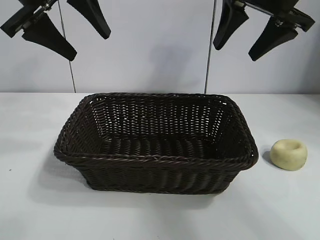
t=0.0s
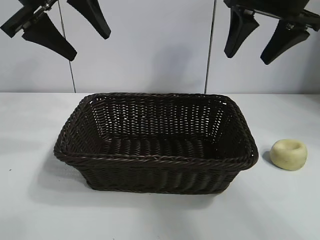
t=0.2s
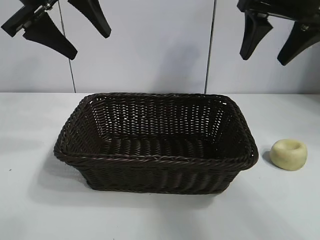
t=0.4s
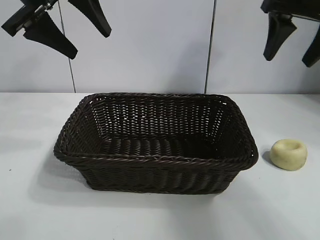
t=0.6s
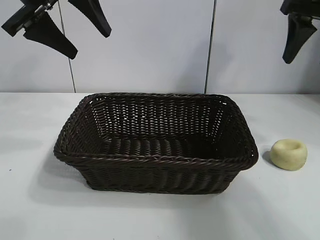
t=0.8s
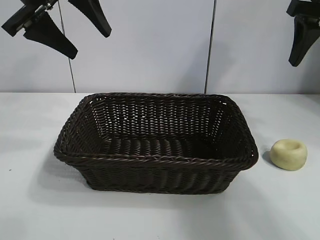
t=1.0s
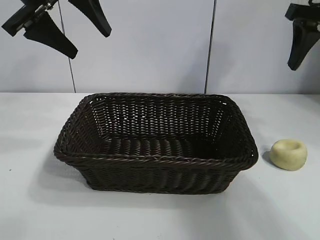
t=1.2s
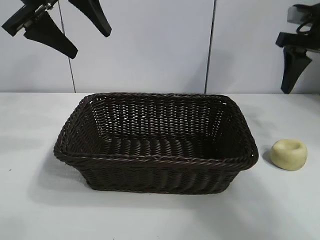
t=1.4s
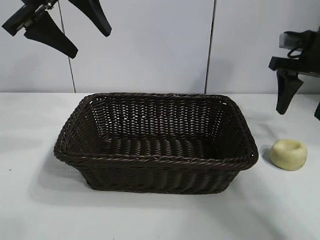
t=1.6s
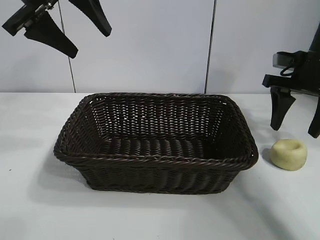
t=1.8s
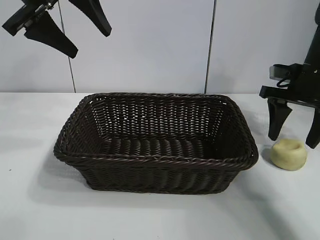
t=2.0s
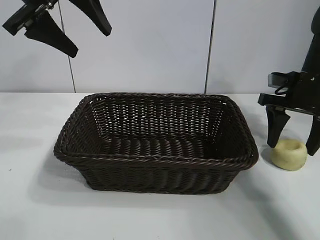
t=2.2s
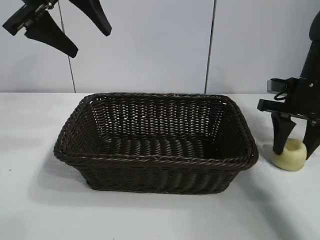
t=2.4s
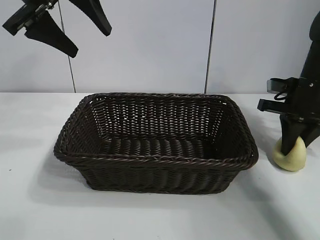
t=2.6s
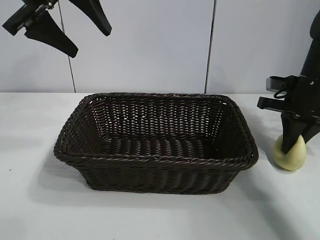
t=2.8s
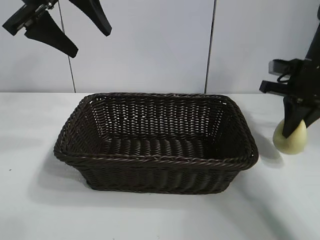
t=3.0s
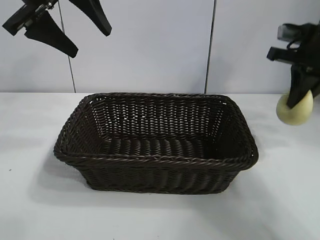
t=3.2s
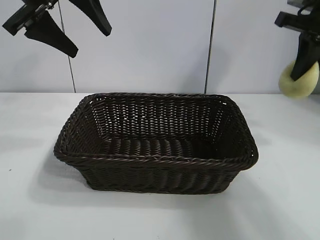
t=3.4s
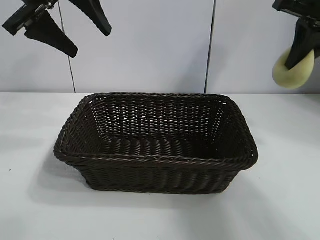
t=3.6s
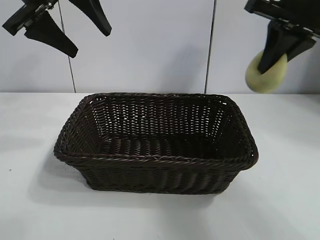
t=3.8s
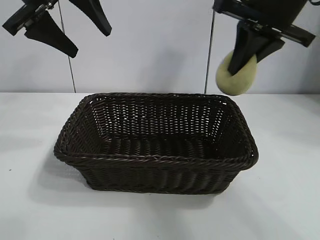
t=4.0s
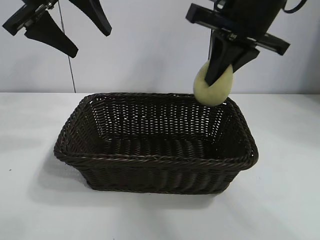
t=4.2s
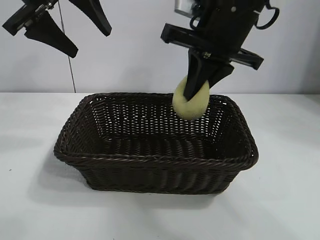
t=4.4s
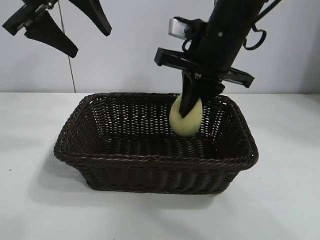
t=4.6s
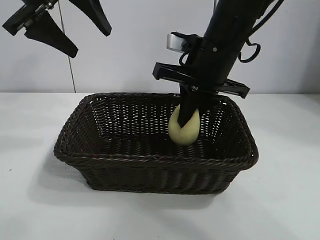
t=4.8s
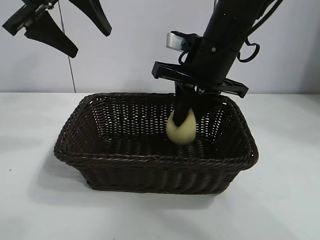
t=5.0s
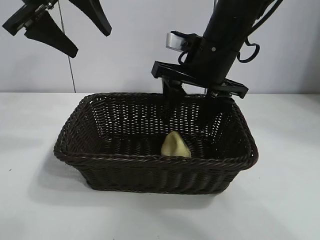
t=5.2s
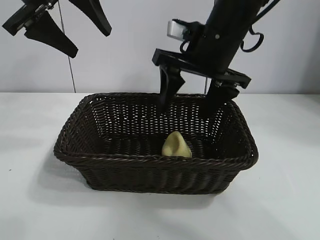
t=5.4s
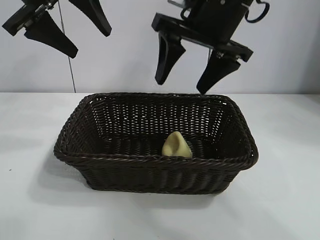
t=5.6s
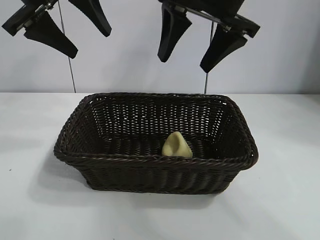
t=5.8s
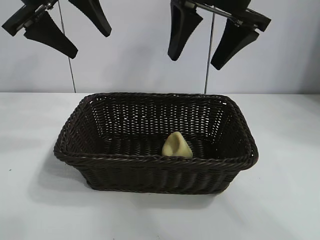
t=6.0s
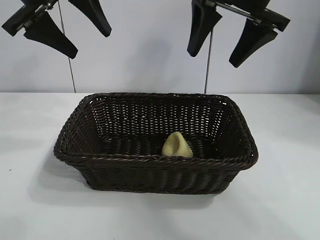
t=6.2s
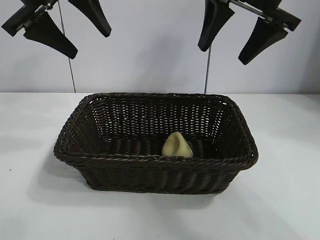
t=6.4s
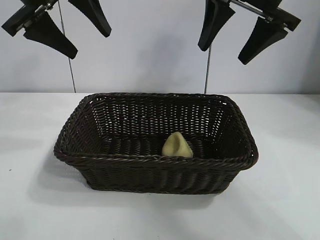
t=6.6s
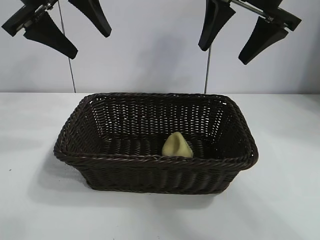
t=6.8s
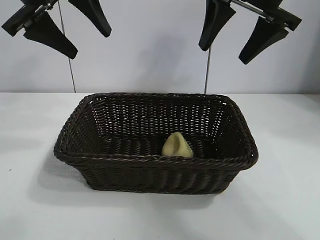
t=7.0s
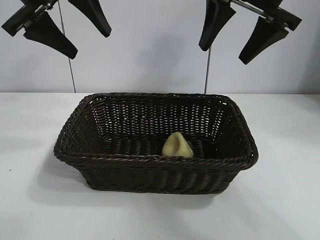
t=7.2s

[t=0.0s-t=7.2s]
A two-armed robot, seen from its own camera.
Task of the whole recording: pick up the egg yolk pastry and put it into the basket.
Step, t=0.0s to t=2.6s: Grasp egg yolk pastry with right gripper.
Step, t=2.8s to t=5.0s: Place the egg yolk pastry in the basket with right gripper.

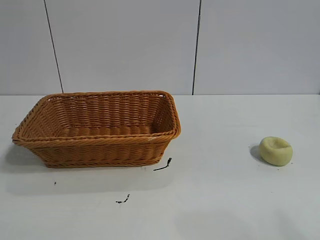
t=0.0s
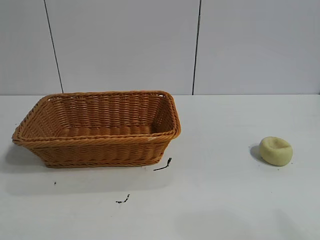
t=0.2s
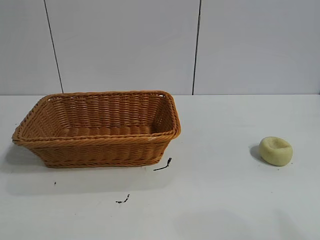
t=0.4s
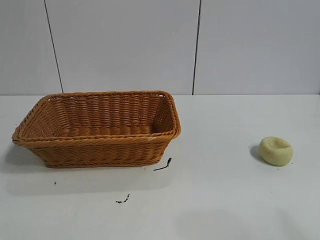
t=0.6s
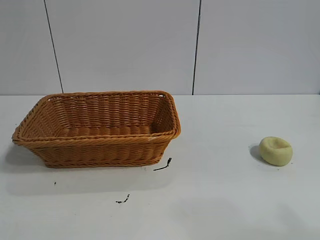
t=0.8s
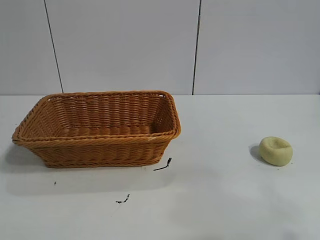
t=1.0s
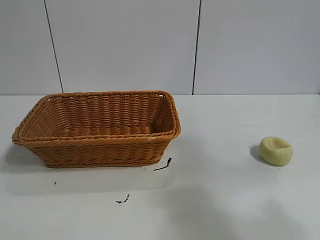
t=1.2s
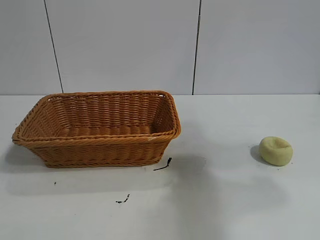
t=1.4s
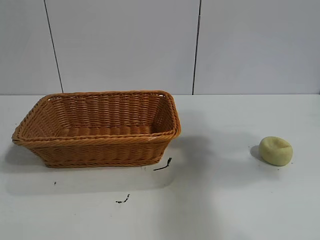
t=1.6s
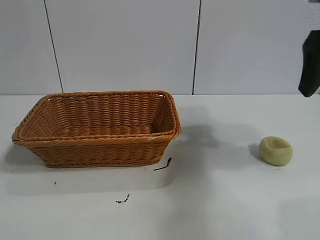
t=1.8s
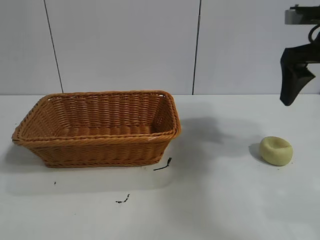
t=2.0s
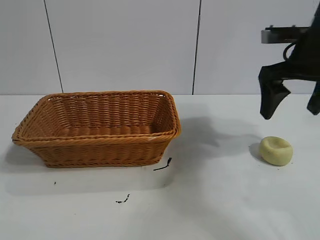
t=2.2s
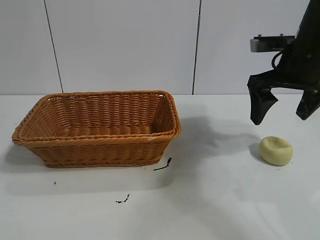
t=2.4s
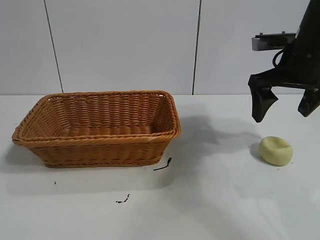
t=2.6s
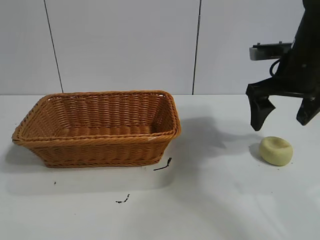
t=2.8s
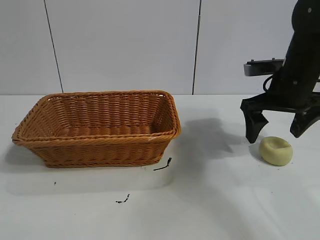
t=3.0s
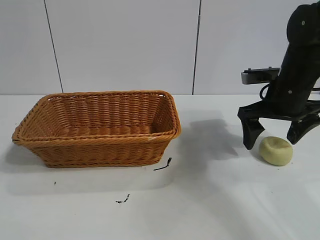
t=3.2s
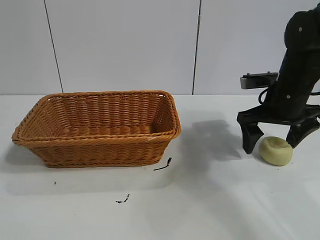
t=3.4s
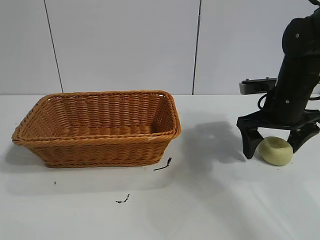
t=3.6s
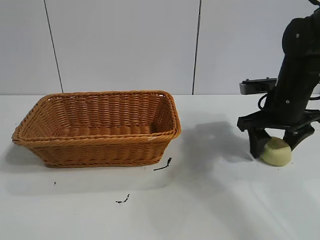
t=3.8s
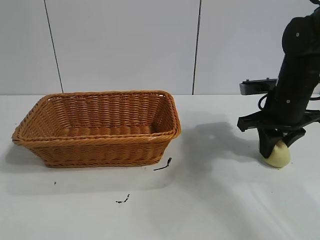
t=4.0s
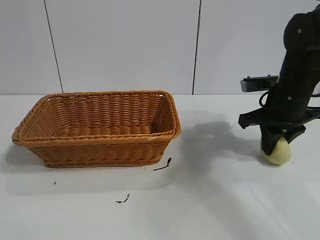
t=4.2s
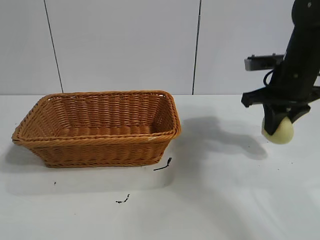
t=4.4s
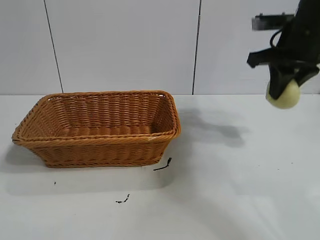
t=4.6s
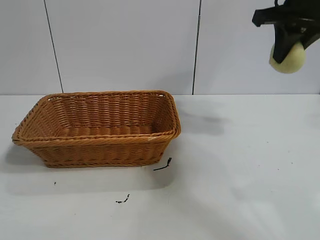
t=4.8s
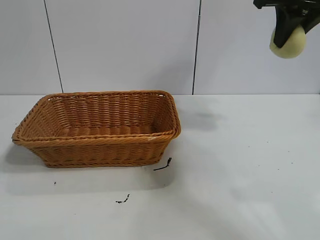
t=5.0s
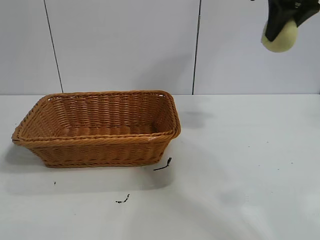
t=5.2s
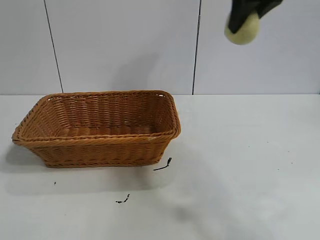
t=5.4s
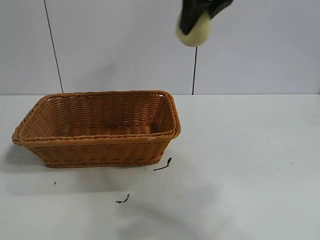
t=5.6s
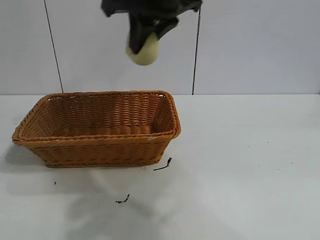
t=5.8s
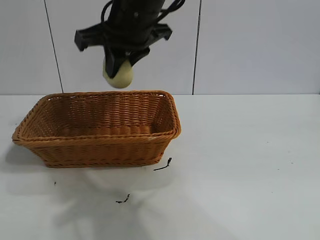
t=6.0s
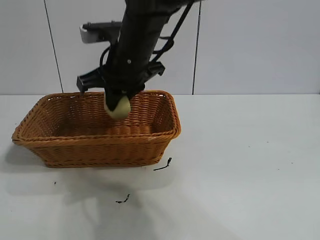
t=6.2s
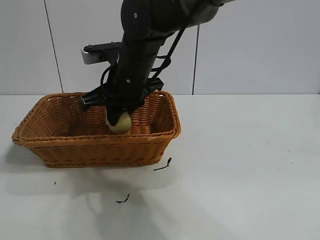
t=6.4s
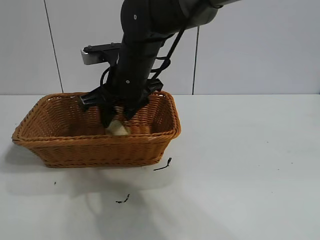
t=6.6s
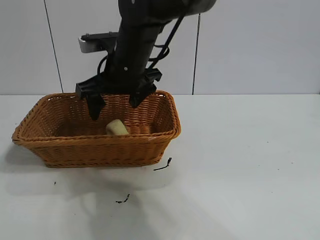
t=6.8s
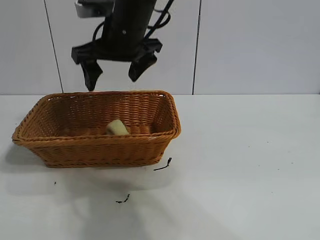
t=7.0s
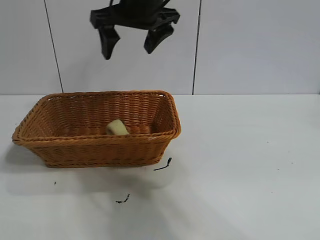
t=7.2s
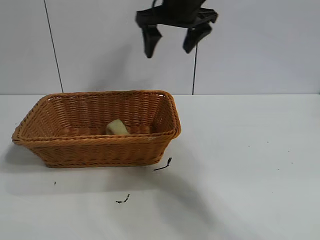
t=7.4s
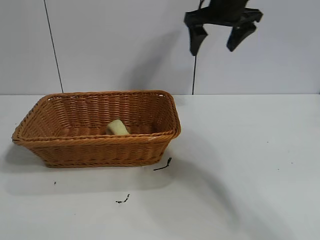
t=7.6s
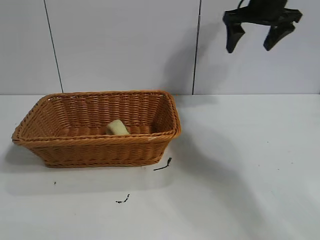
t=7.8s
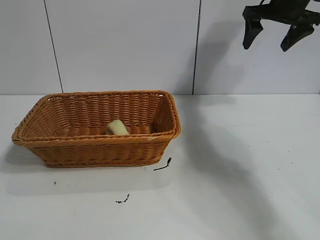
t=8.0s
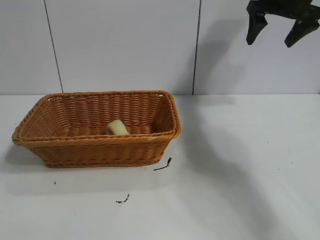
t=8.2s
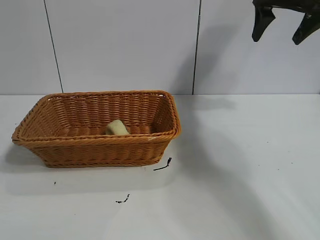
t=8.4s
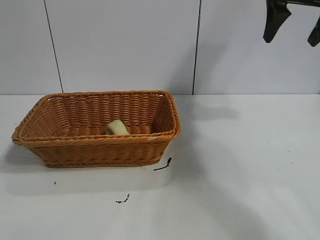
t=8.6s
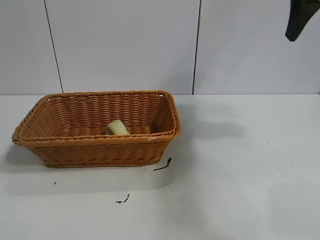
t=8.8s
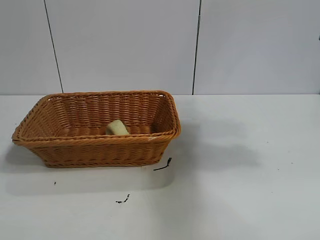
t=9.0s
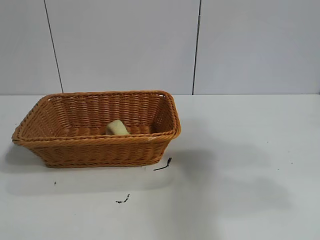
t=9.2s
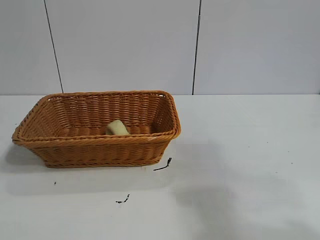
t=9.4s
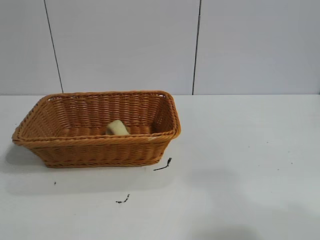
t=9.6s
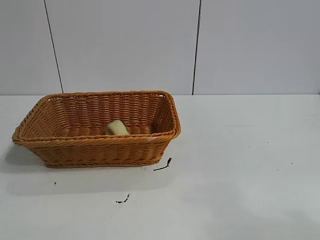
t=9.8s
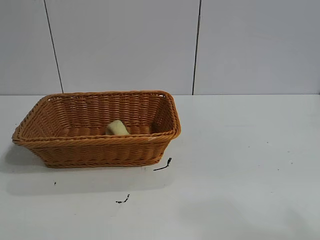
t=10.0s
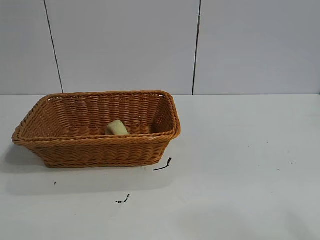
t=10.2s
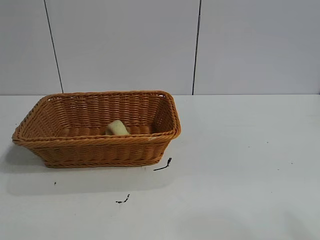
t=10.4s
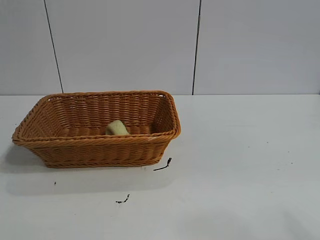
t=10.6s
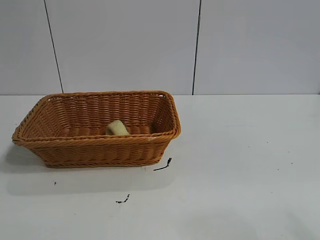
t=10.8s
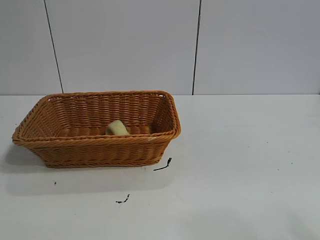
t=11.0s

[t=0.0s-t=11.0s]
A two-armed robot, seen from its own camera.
Task of the whole recording: pick up the egg yolk pastry and put it into the basket.
Step, t=0.6s to t=4.0s: Grasp egg yolk pastry with right gripper.
Step, t=4.2s to t=6.6s: Place the egg yolk pastry in the basket with right gripper.

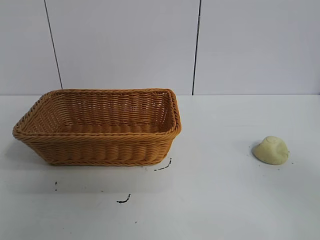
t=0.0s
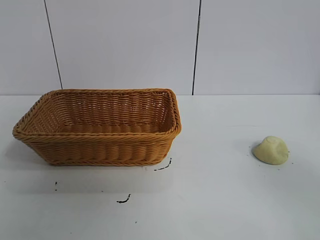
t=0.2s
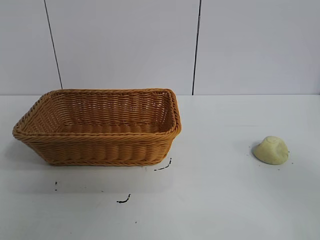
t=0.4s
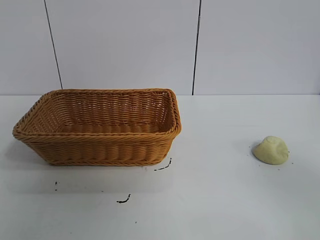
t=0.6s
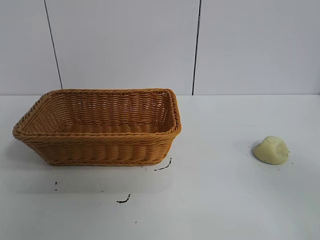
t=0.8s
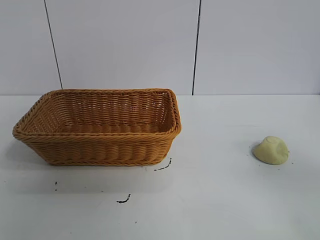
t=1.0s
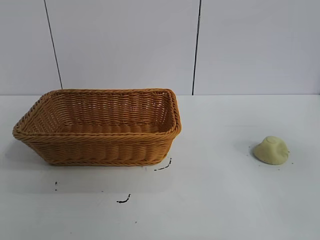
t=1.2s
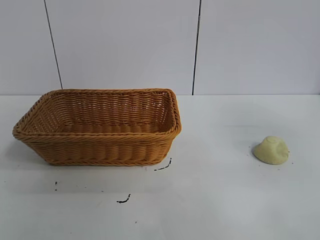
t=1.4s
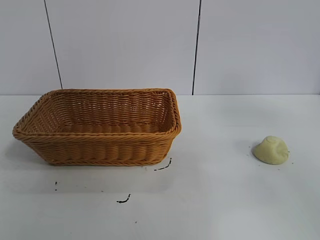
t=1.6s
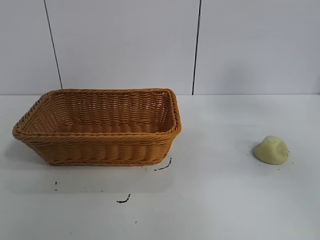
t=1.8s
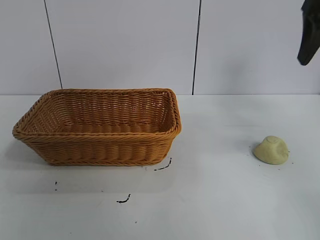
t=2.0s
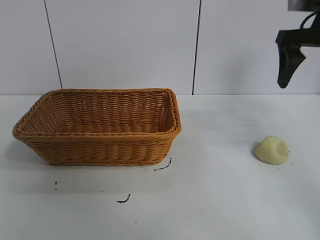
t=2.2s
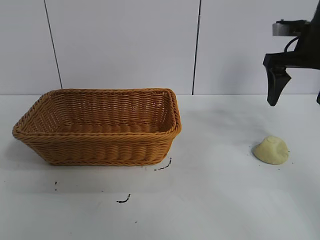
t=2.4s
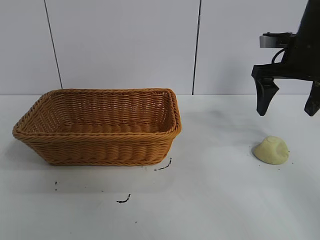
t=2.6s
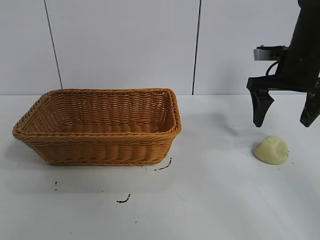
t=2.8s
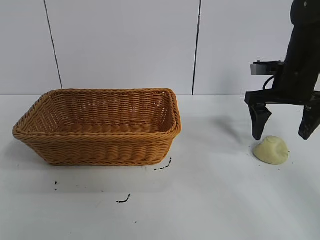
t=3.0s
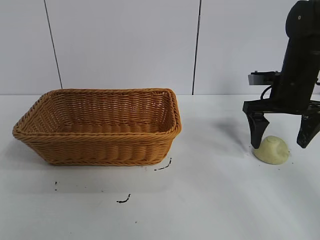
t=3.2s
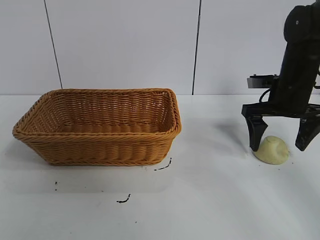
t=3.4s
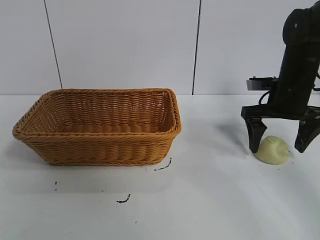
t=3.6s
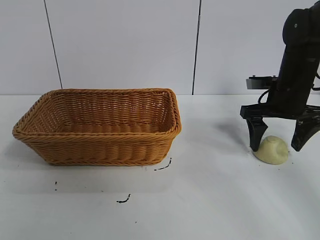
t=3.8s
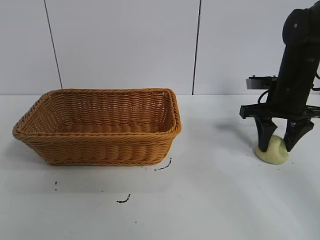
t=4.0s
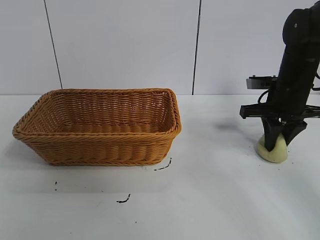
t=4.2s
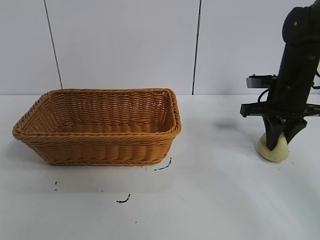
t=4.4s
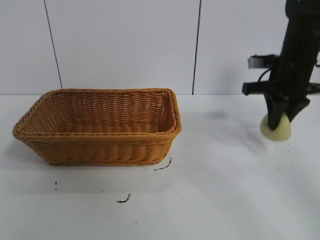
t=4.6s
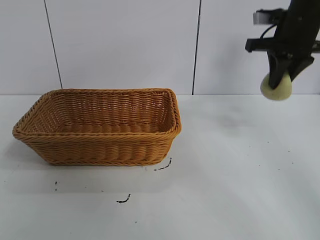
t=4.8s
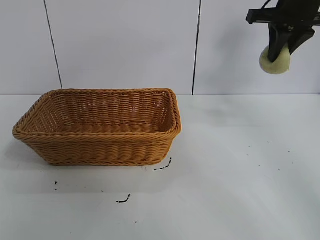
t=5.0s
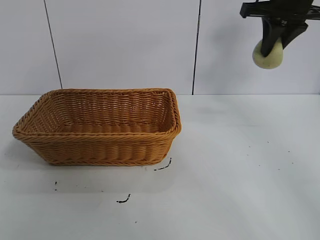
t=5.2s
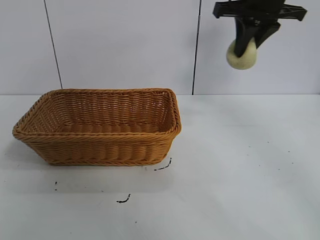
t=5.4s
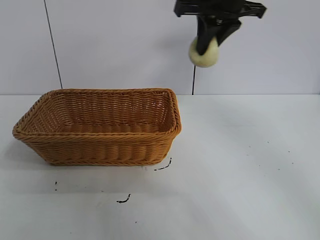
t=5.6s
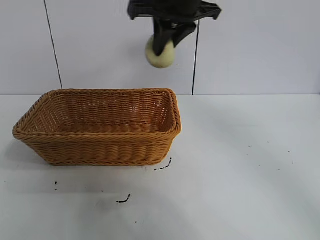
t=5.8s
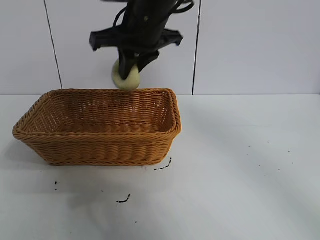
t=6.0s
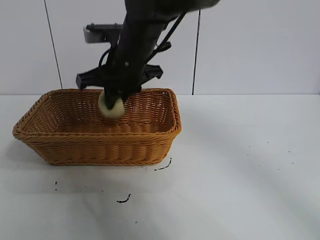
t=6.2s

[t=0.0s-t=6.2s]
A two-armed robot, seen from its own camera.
Task of the whole recording: pick up the egg yolk pastry and put it into the basket.
Step, t=0.8s to t=4.2s: Grasp egg yolk pastry with right gripper.
